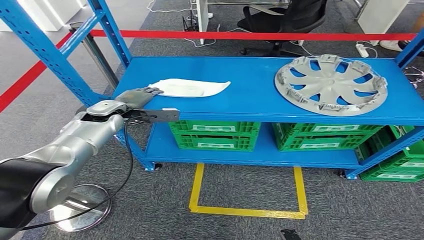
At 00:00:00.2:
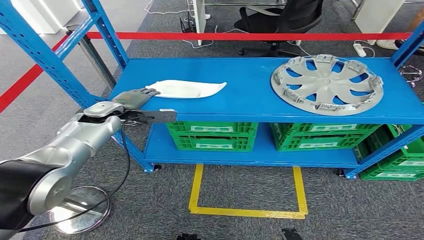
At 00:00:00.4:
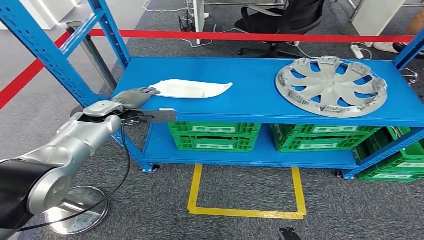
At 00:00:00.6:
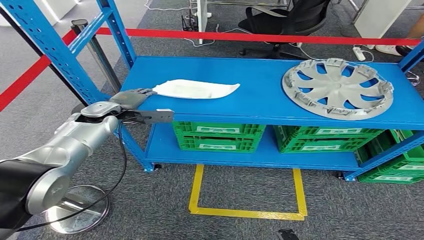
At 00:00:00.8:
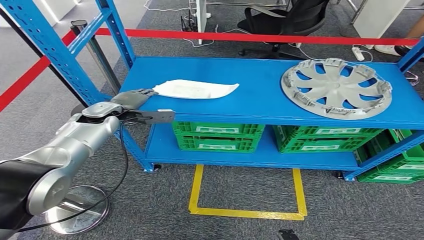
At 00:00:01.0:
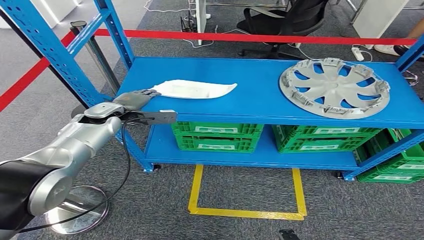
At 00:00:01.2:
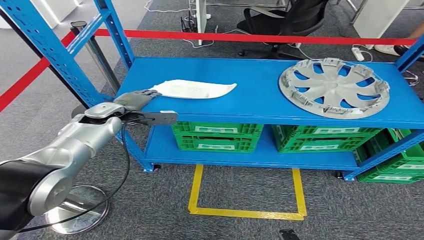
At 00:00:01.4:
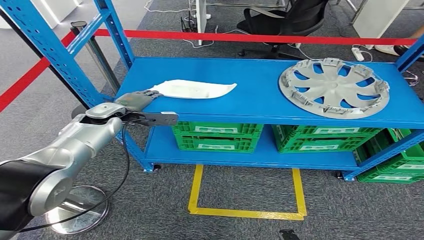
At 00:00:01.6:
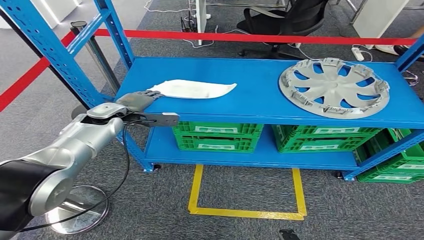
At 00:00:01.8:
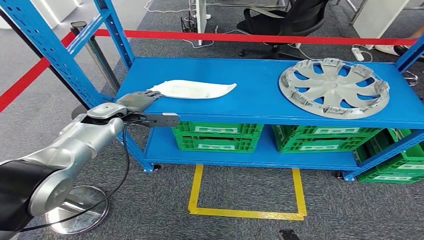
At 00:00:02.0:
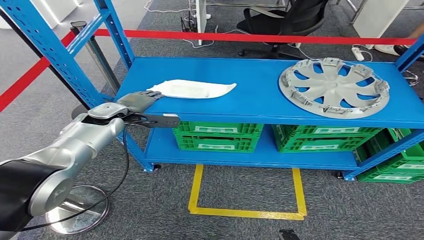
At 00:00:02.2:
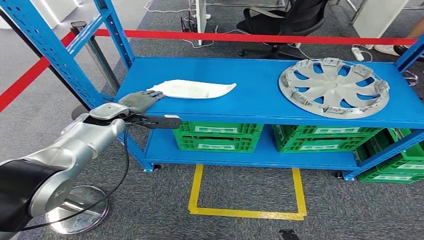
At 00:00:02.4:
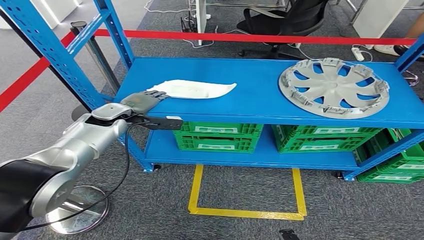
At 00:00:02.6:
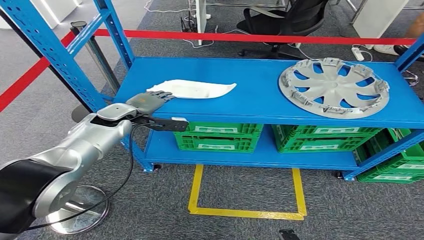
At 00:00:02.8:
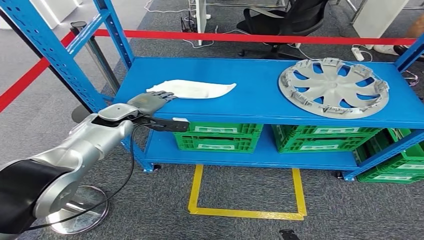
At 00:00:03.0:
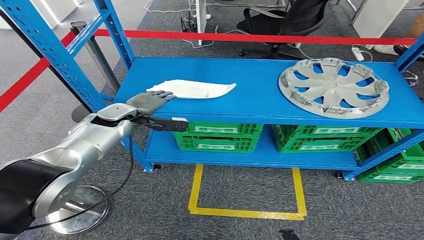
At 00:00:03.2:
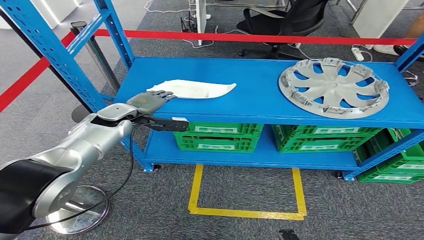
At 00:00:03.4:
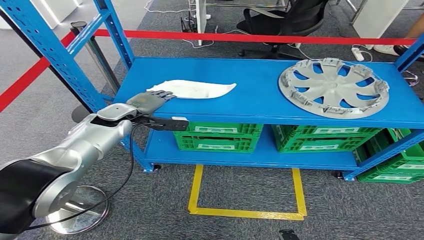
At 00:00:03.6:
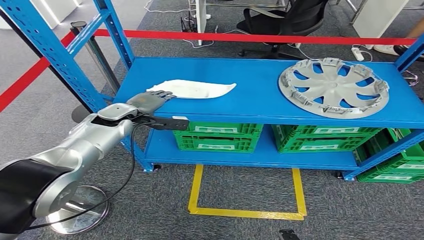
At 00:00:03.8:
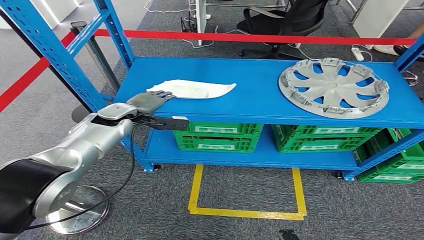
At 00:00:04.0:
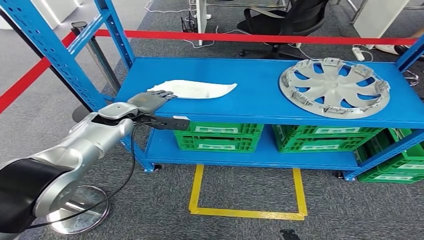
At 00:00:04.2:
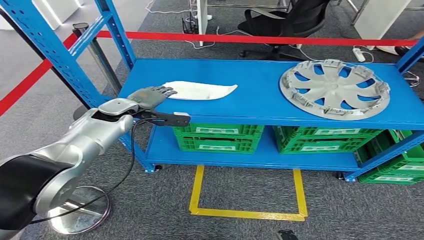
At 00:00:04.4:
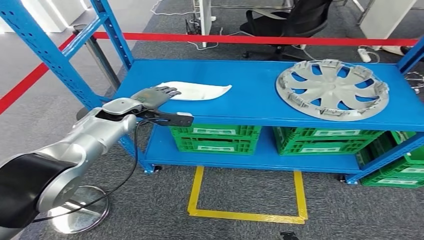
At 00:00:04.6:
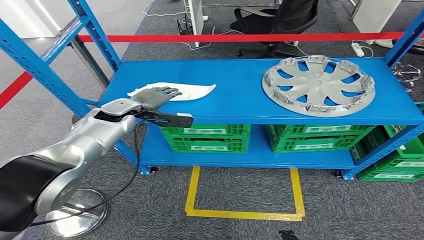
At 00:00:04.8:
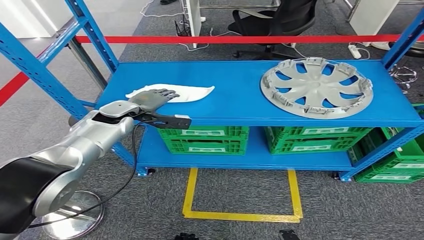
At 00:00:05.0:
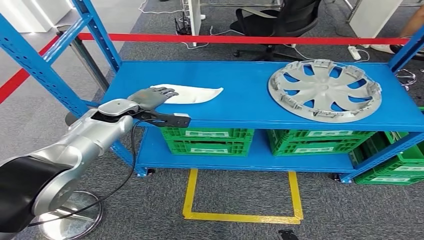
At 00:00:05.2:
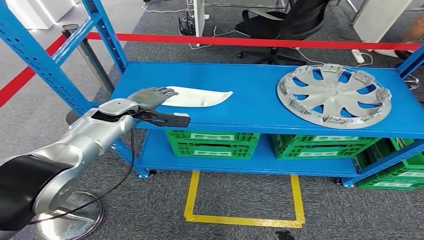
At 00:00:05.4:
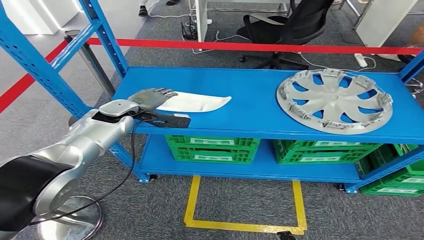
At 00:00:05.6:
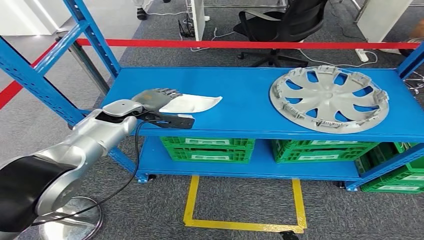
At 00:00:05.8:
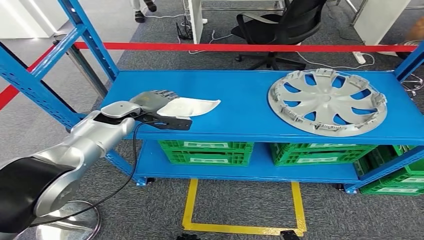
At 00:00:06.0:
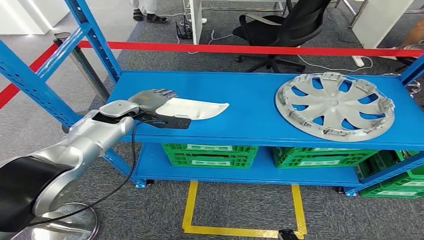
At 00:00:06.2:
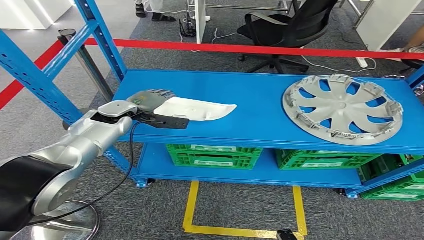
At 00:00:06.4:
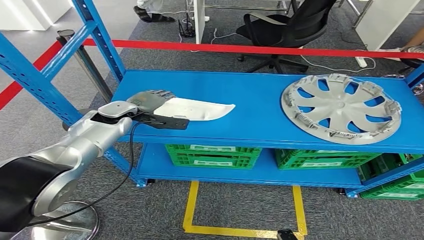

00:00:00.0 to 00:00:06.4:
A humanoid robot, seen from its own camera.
Step, 00:00:00.0 to 00:00:06.4: Pick up the small component from the shelf.
00:00:01.6 to 00:00:03.2: The hands move only a little.
